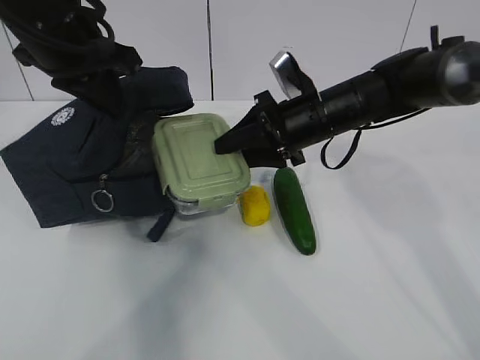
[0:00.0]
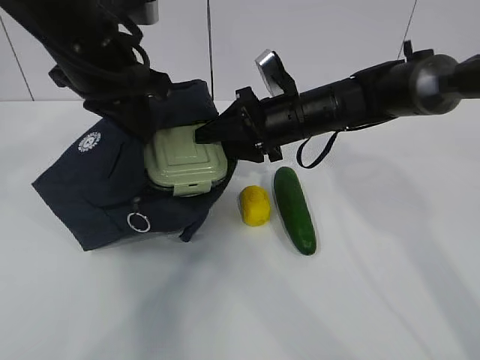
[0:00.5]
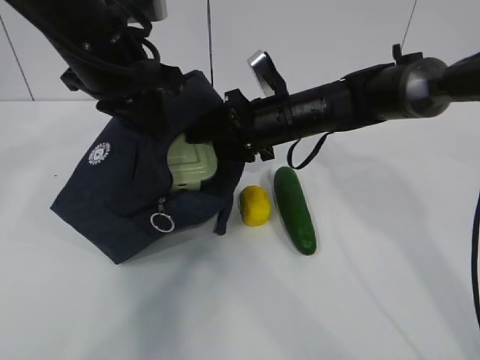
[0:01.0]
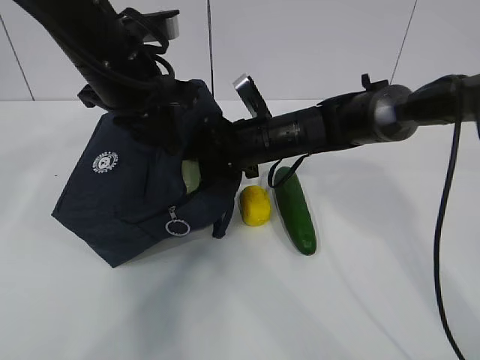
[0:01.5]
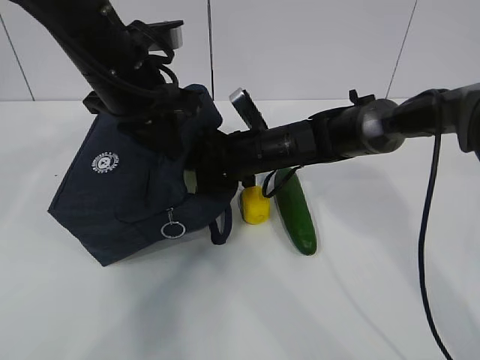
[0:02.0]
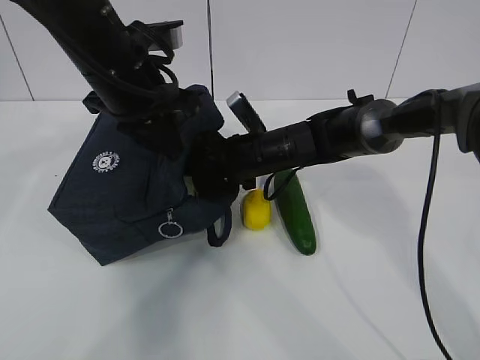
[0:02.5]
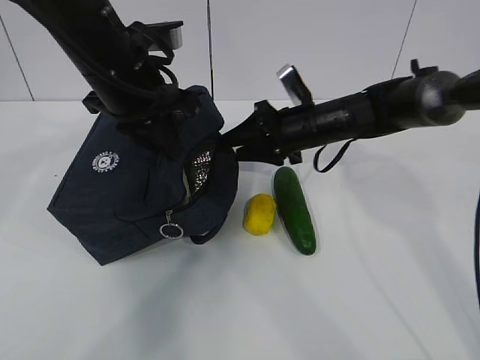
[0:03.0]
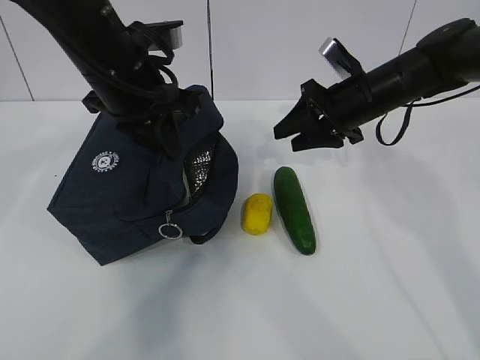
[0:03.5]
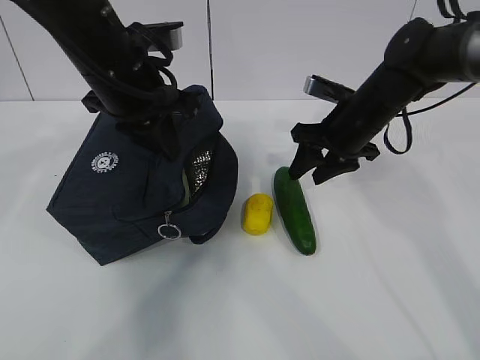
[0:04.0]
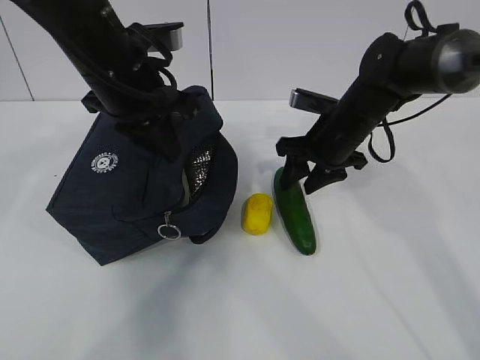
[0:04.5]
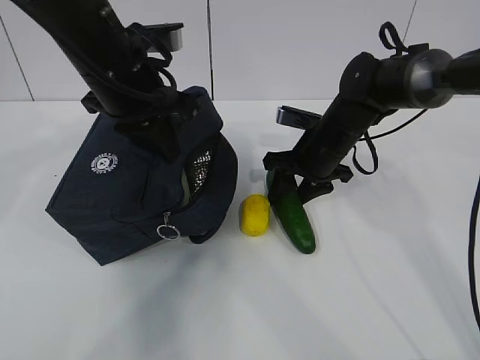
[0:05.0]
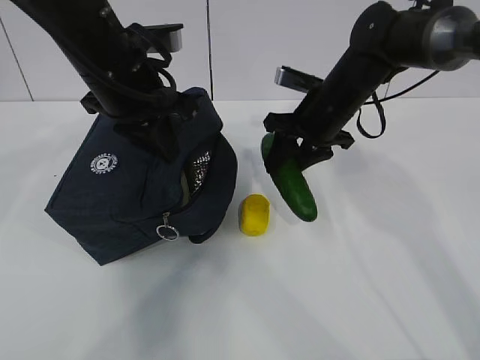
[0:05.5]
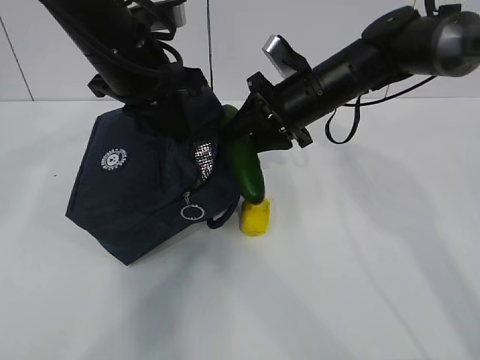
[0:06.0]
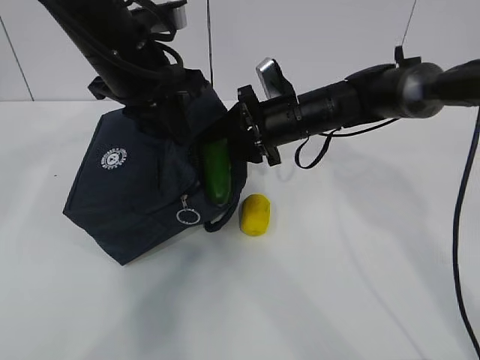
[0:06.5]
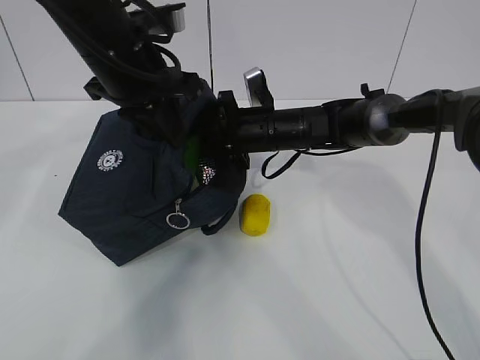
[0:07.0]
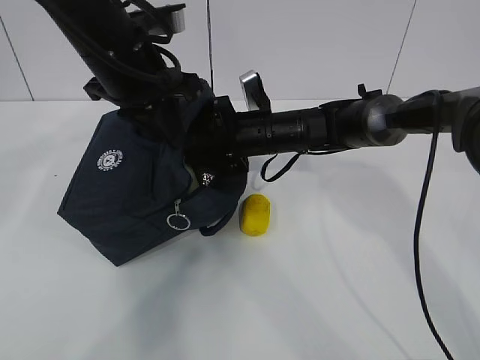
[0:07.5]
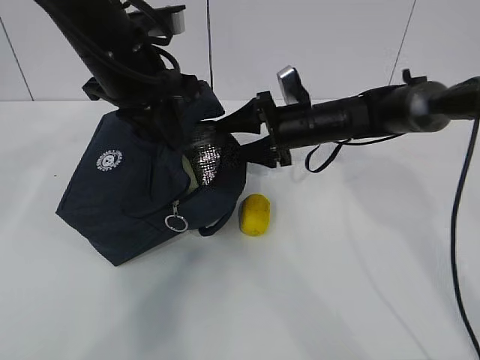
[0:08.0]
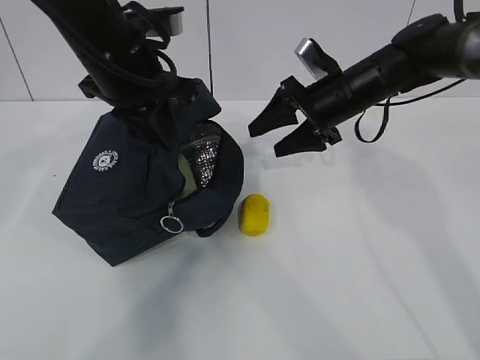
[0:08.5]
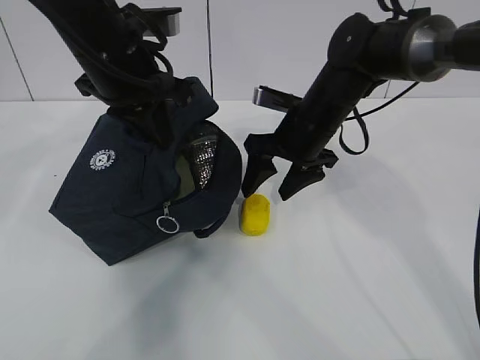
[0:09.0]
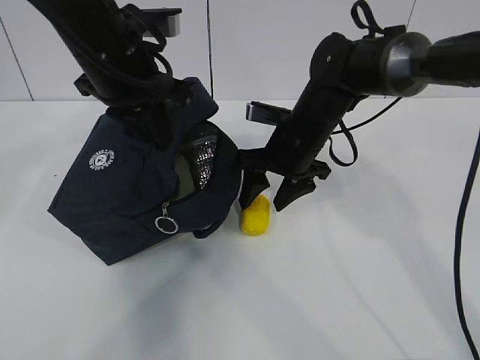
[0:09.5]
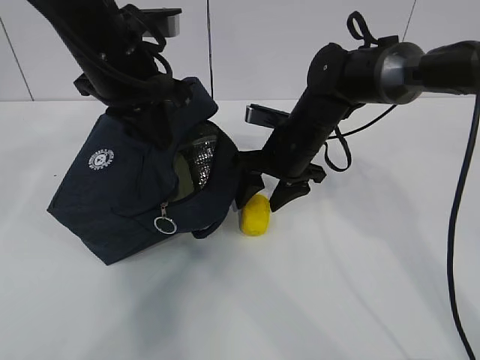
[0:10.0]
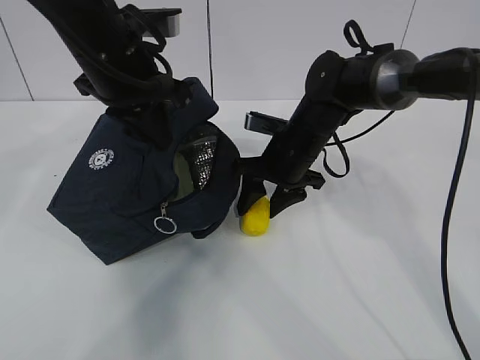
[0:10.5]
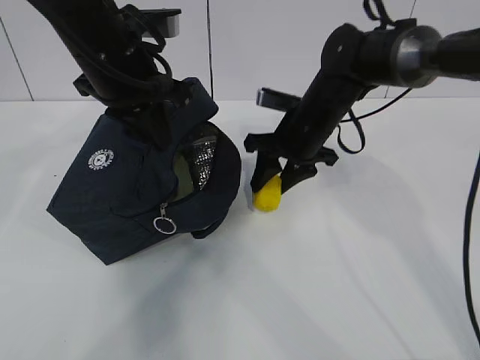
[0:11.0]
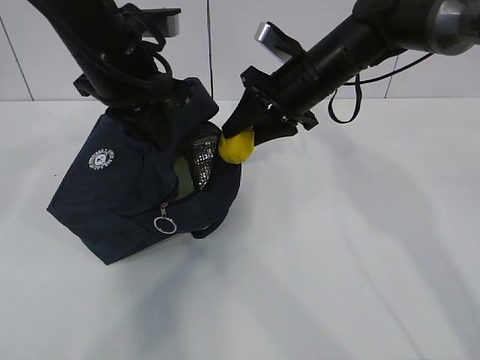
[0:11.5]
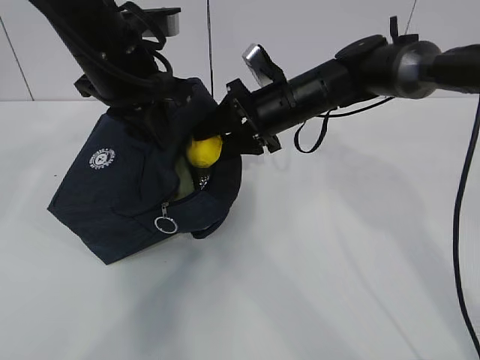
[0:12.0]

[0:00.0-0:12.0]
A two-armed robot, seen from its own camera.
Step, 0:00.5 to 0:02.0: Place it into the bag with your right hand.
Step, 0:02.5 to 0:04.5: Grab the lemon with your right hand.
Step, 0:05.0 to 0:06.0: Secure the lunch bag with your left hand.
Step, 0:06.5 to 0:07.0: Place it into the bag with your right hand.
Step, 0:08.0 to 0:09.0: Move the lunch bag to the right.
0:00.0 to 0:02.0: The left gripper heads to the right, covering approximately 5 cm. The right gripper moves downward and to the left, about 10 cm.
0:02.0 to 0:04.0: The right gripper moves to the right and upward, about 15 cm.
0:04.0 to 0:06.0: The right gripper travels to the left by roughly 5 cm.
0:06.0 to 0:08.0: The right gripper is displaced downward by about 5 cm, and opens.
0:08.0 to 0:10.0: The right gripper changes place by approximately 5 cm.

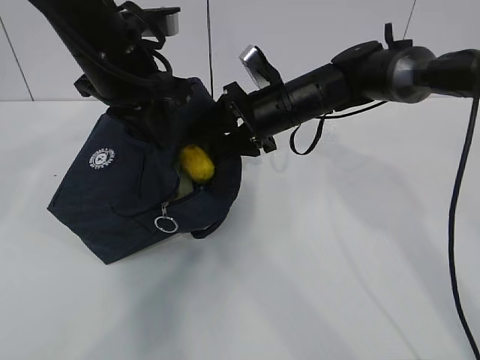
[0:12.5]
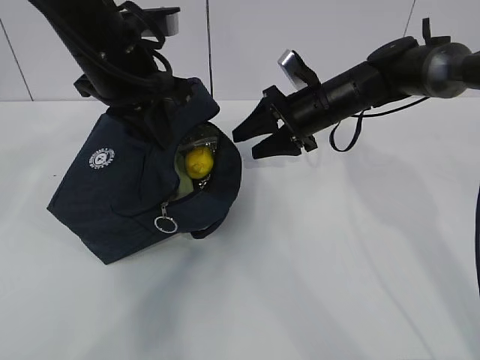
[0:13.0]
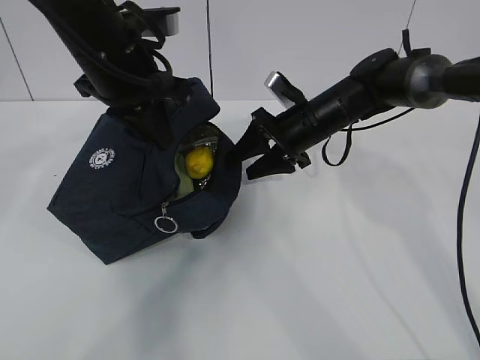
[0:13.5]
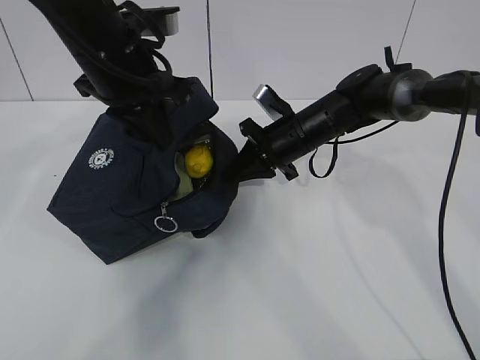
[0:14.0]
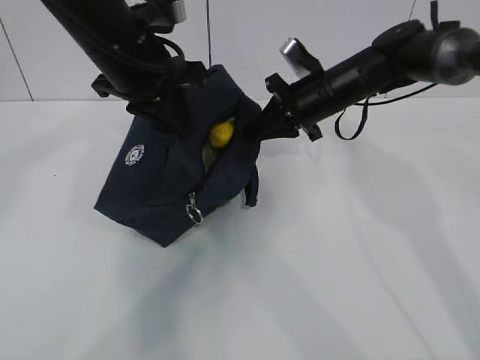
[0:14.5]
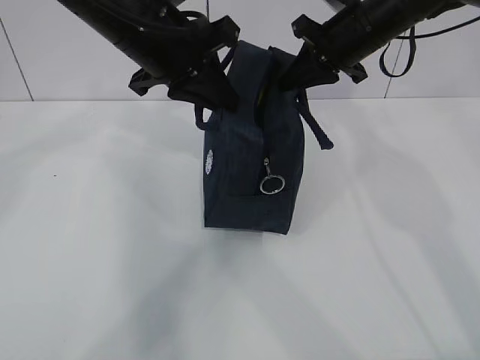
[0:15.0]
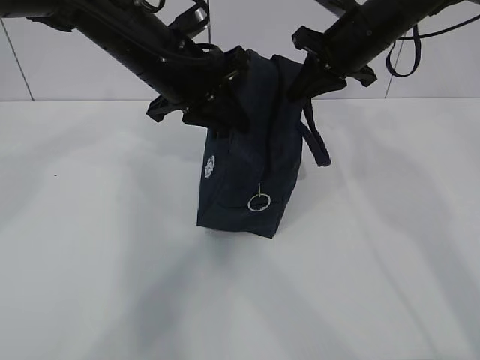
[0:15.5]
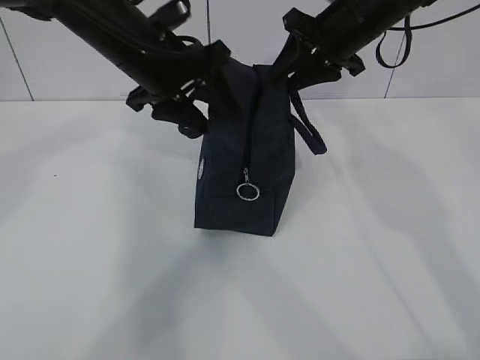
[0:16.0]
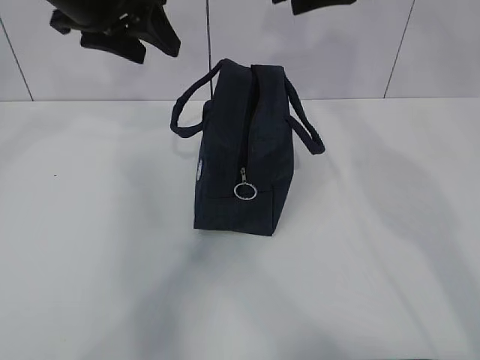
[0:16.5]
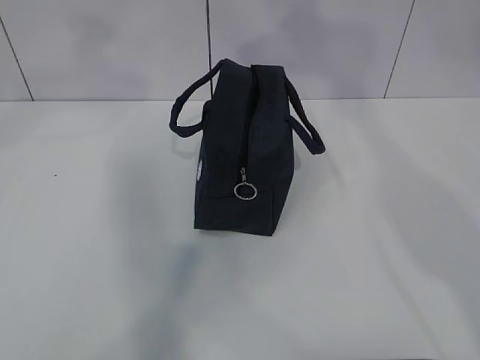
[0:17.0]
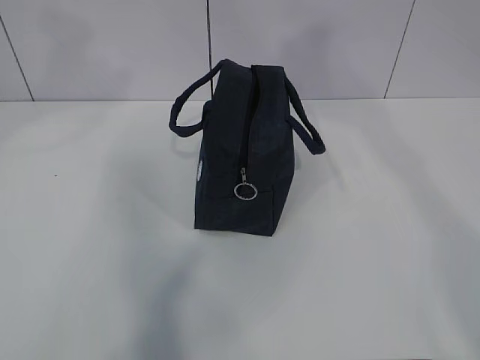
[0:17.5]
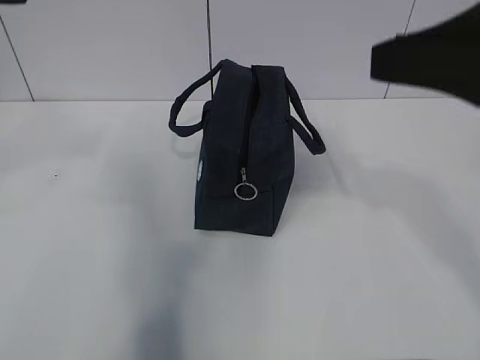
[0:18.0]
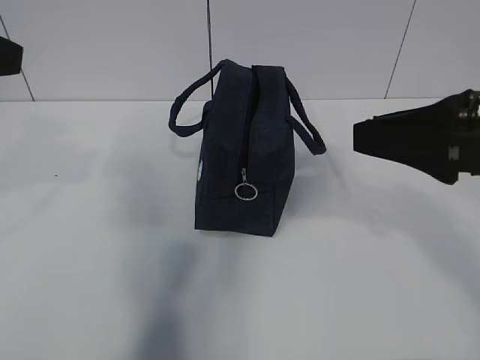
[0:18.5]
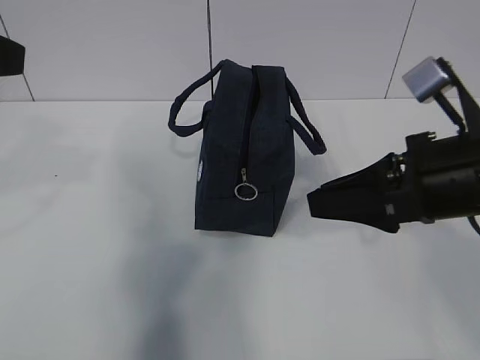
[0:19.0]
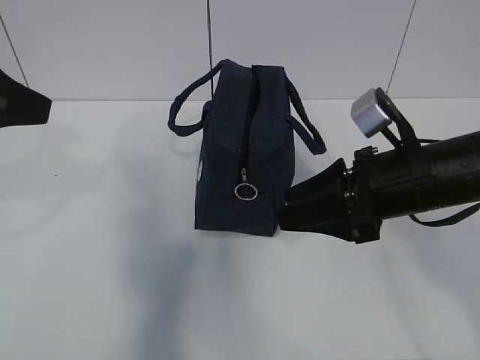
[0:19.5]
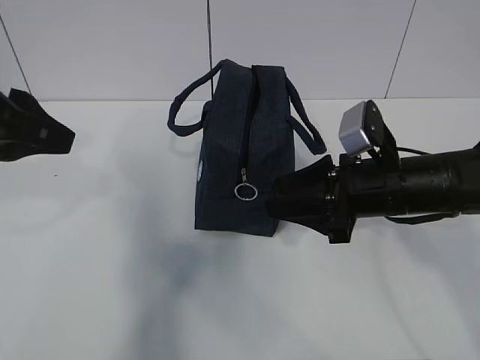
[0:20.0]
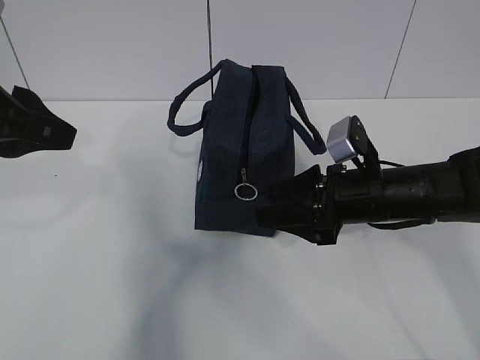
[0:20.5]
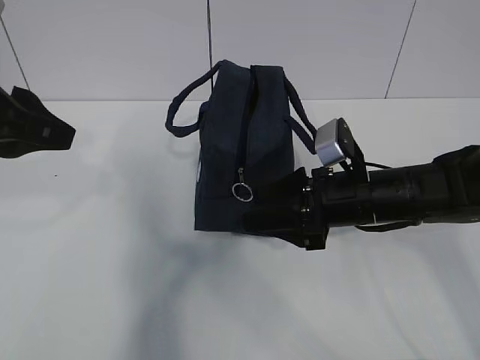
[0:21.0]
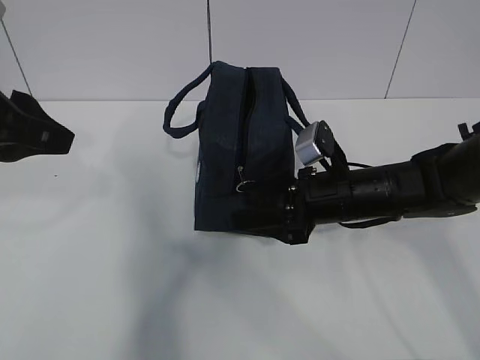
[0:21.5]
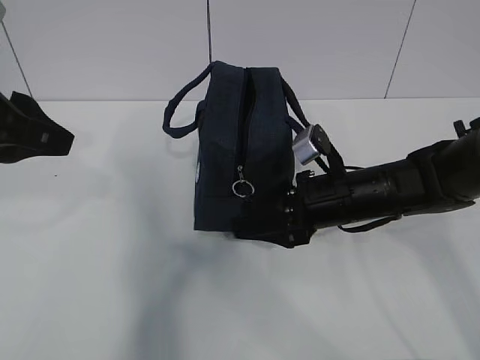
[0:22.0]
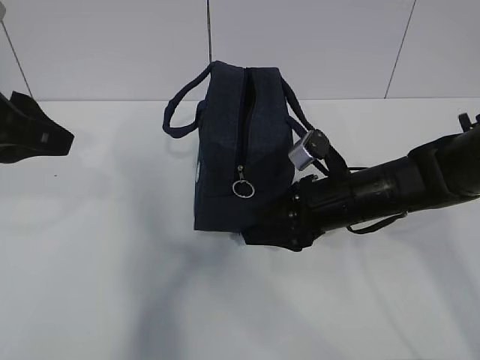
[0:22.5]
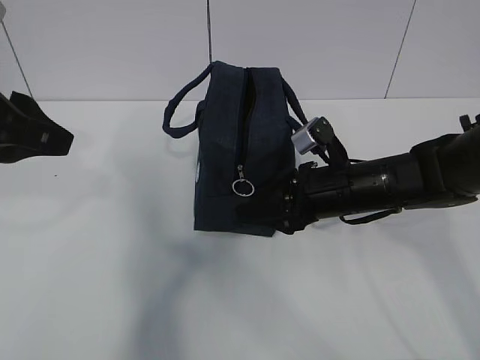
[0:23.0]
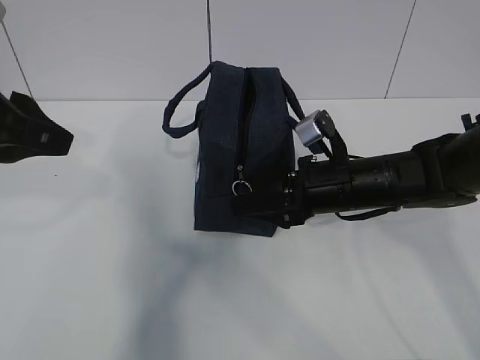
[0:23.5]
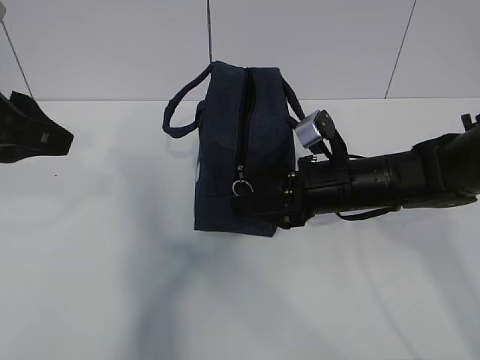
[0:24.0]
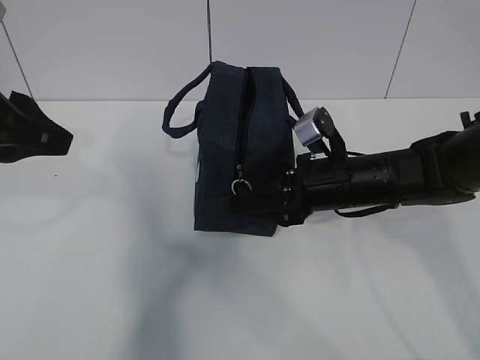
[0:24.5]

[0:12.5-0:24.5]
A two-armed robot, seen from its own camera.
0:12.5 to 0:14.5: The right gripper is displaced to the right by approximately 5 cm, and closes up.
0:14.5 to 0:16.5: The right gripper is displaced upward by roughly 20 cm, and opens. Meanwhile the left gripper travels upward by roughly 5 cm, and opens its fingers.
0:16.5 to 0:18.5: The right gripper shifts approximately 25 cm backward; the left gripper moves backward and to the left, roughly 20 cm.
0:18.5 to 0:20.5: The right gripper goes about 20 cm downward and forward; the left gripper shifts some 5 cm downward.
0:20.5 to 0:24.5: The grippers make only small movements.

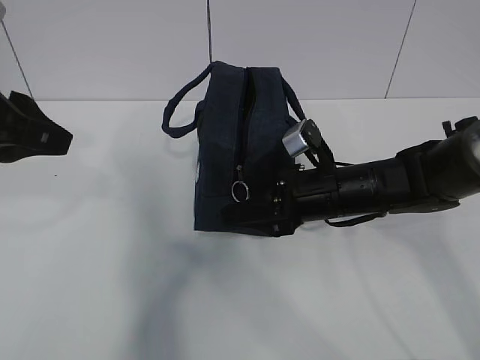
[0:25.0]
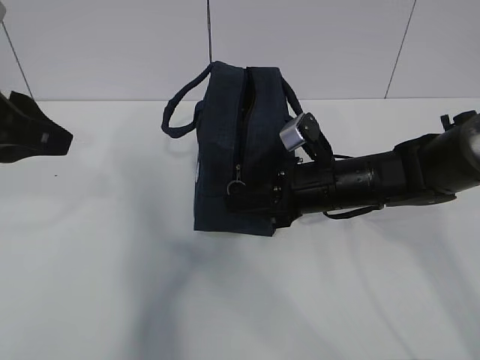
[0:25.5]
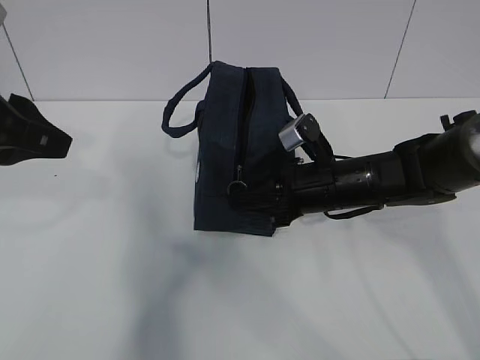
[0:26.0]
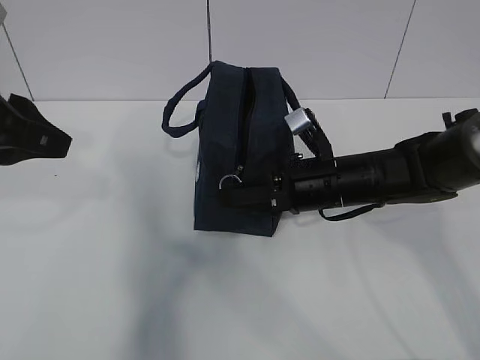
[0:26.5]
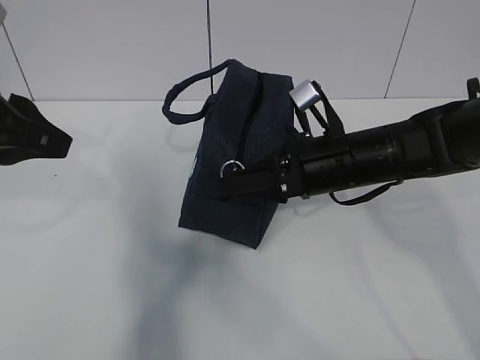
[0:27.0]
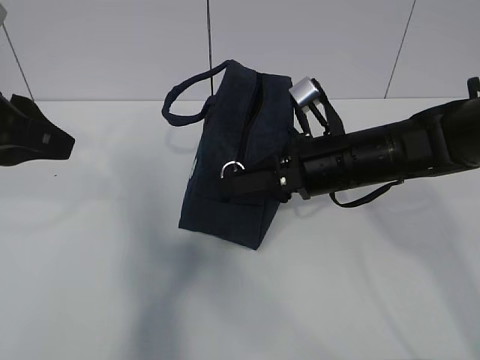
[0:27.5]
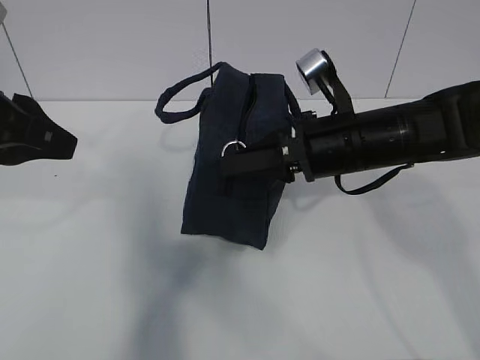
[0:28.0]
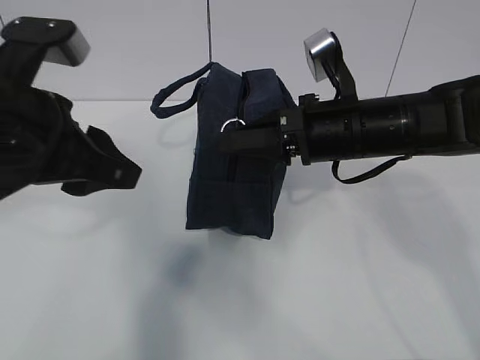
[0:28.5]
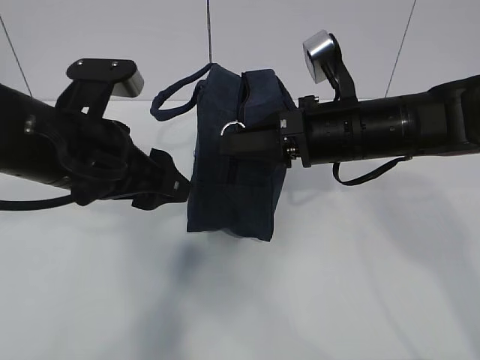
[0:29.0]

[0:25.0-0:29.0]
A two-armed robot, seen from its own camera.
0:25.0 to 0:27.0: The right gripper travels upward by roughly 5 cm, and closes its fingers.
0:27.0 to 0:29.0: The left gripper goes approximately 10 cm to the right and downward, and opens up.
